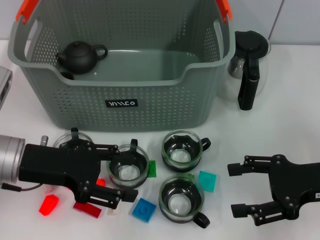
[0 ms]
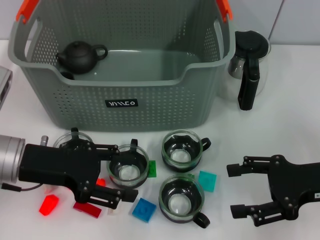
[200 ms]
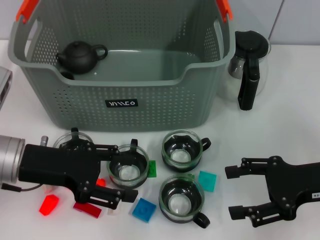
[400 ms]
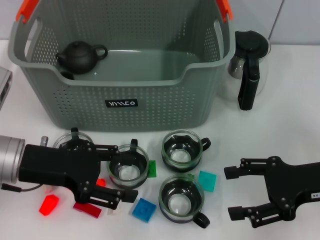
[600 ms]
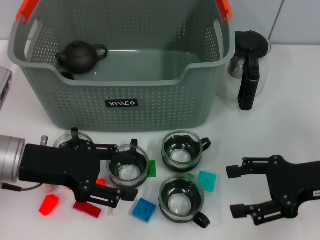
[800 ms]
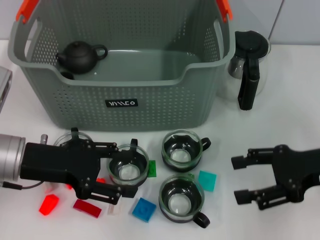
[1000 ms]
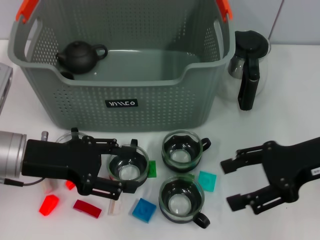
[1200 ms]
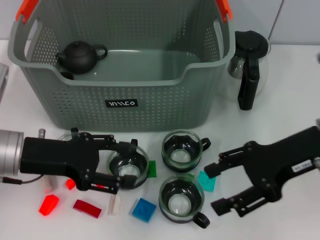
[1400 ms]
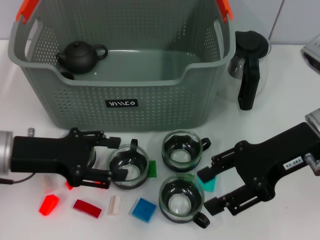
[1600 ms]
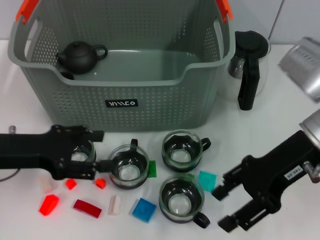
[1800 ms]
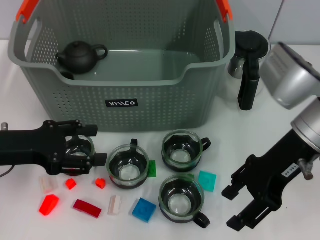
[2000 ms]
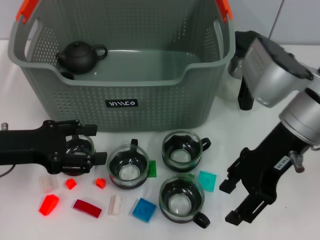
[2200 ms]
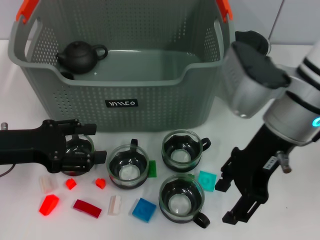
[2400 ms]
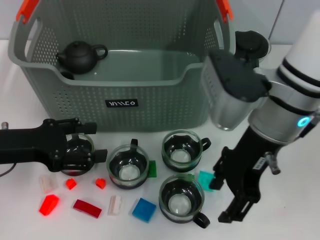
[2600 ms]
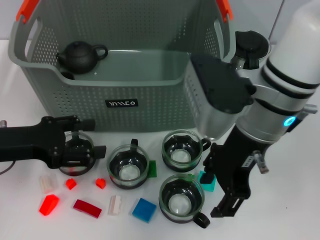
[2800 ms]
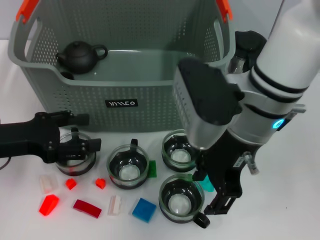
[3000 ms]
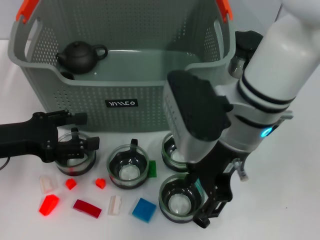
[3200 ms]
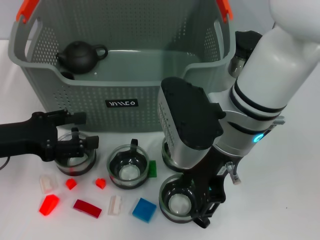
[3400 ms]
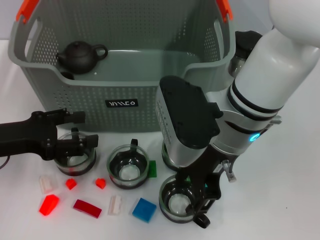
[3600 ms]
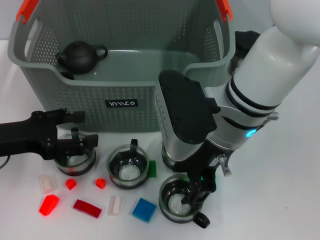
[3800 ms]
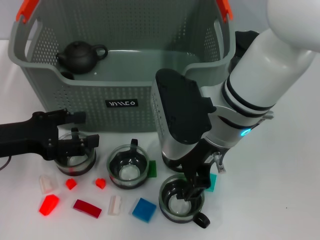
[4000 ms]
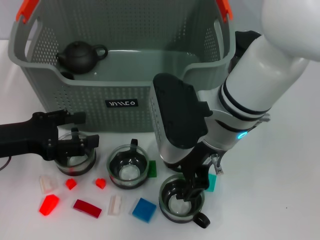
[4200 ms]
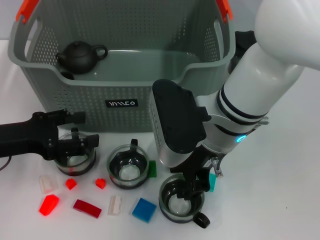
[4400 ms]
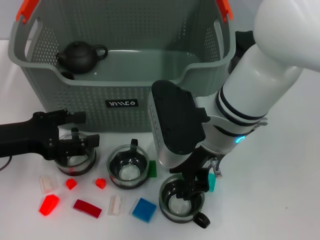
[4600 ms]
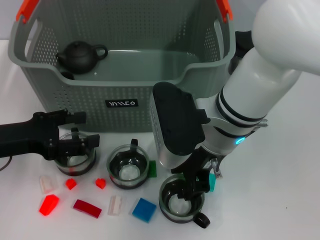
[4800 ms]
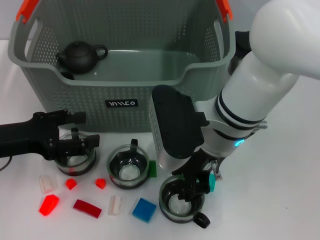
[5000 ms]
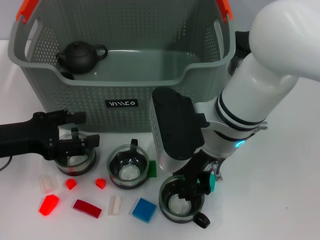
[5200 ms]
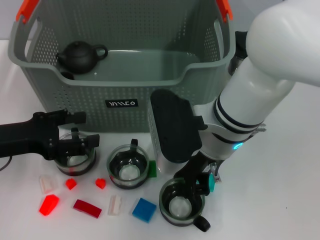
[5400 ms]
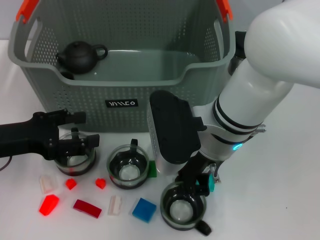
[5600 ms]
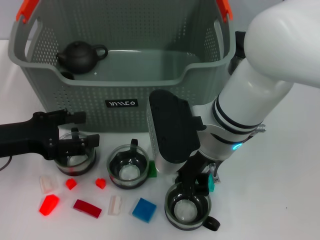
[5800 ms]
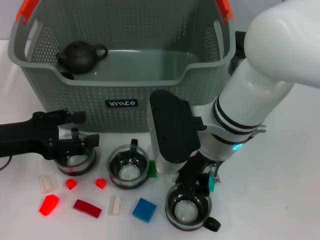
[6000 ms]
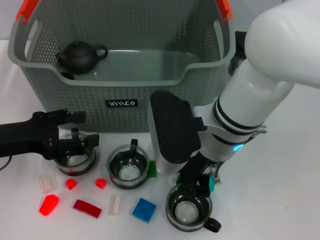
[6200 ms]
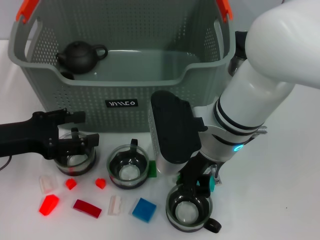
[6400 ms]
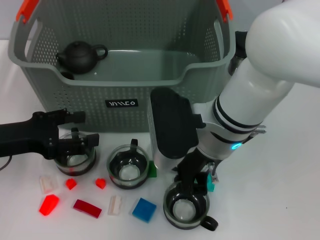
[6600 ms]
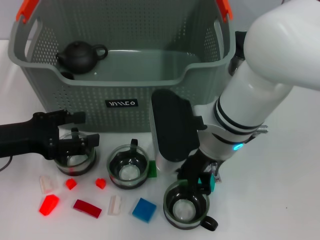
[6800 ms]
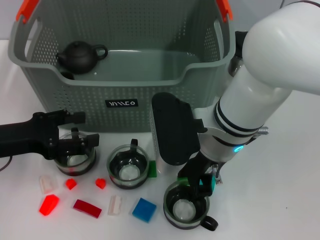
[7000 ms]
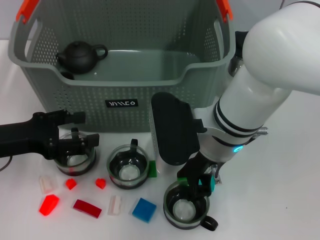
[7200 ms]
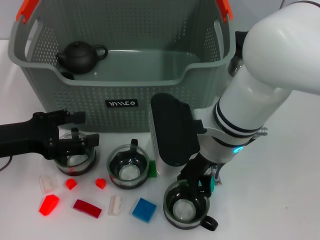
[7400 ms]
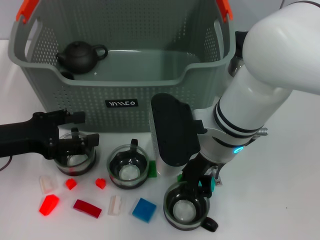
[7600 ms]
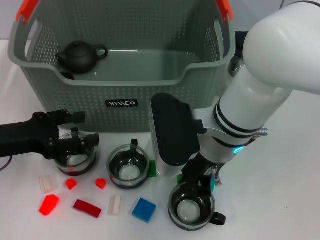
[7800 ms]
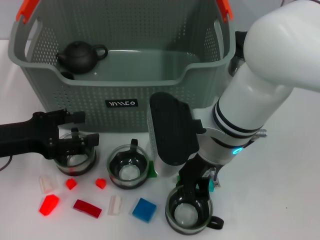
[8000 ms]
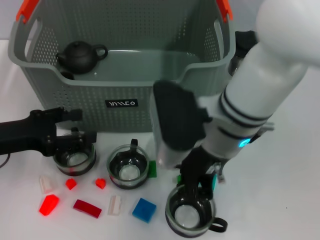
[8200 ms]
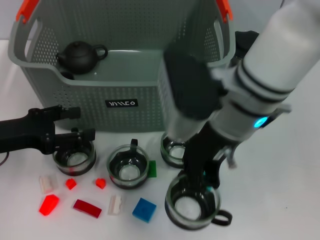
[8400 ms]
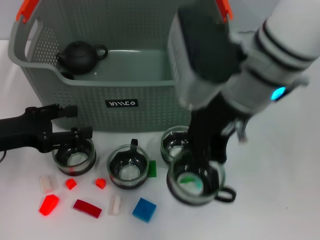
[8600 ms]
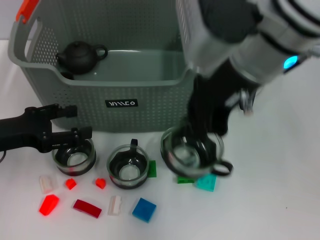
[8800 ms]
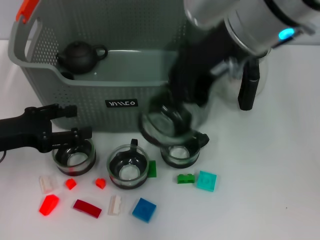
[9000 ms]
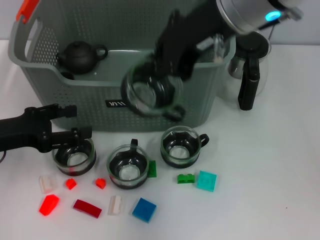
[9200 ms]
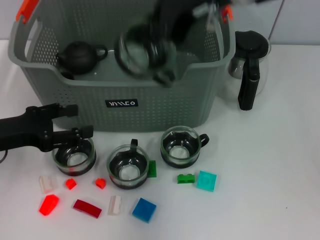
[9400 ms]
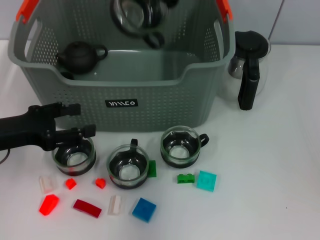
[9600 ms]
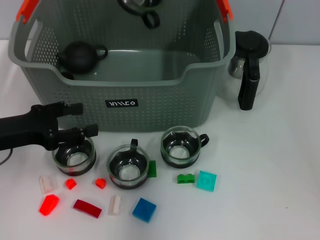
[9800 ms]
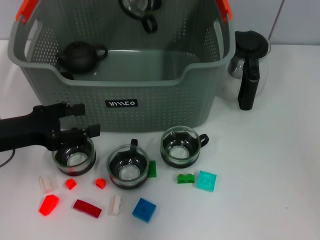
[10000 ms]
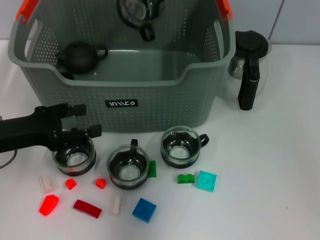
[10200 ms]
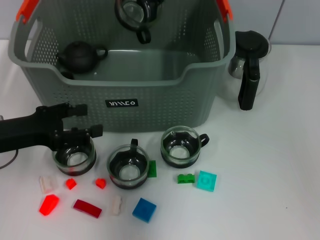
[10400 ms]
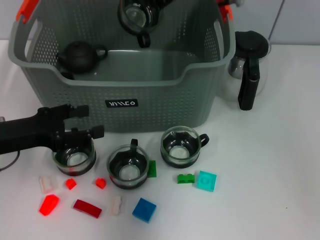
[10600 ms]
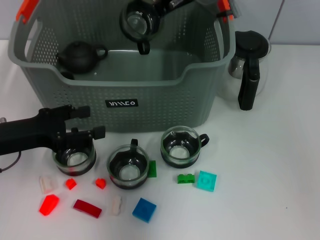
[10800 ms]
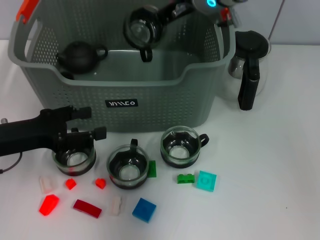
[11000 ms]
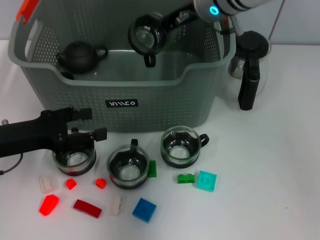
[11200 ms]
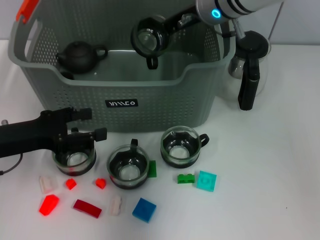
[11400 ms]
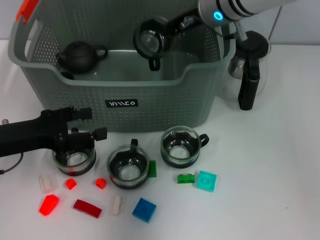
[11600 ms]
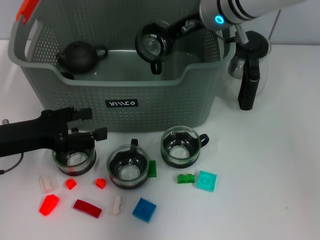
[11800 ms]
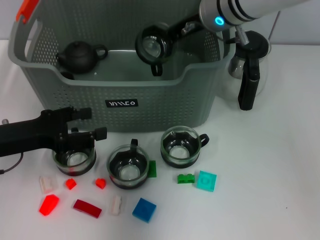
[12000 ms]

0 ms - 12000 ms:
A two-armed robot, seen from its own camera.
Task of the whole recording: pick up the teacup on the table and place it into the storage bin, pick up the block on the table and place it into the storage bin.
Step, 0 ms - 7800 ms: Grasp the cup with right gripper.
0 ms - 1600 ms: The right gripper shifts approximately 10 cm to the left and upward.
1600 ms - 3000 ms: The right gripper shifts some 10 cm to the left.
4400 ms - 6000 ms: The right gripper closes up.
6000 ms - 7600 ms: The right gripper opens its fingers.
7600 ms - 9000 ms: The right gripper goes some 15 cm upward, and closes.
9000 ms - 10400 ms: The right gripper is displaced forward by roughly 15 cm.
10400 ms - 12000 ms: The right gripper travels downward by approximately 5 cm.

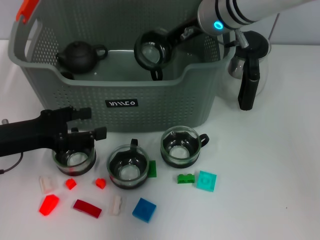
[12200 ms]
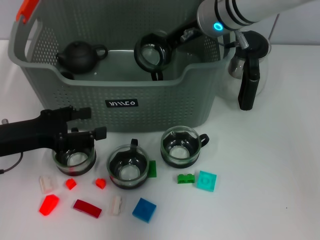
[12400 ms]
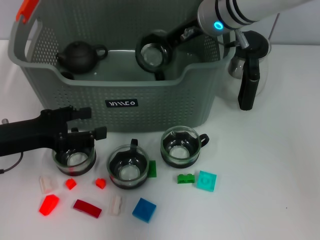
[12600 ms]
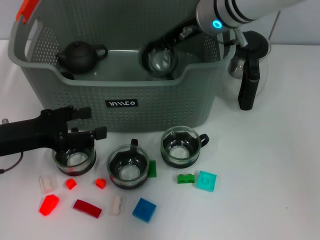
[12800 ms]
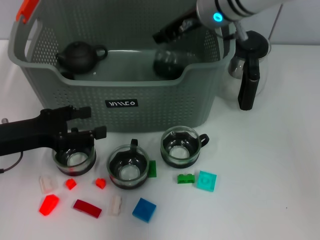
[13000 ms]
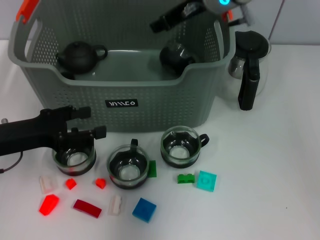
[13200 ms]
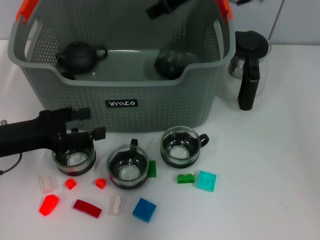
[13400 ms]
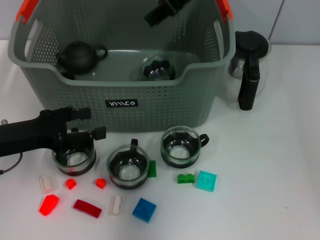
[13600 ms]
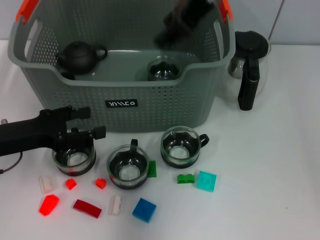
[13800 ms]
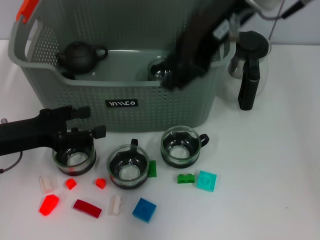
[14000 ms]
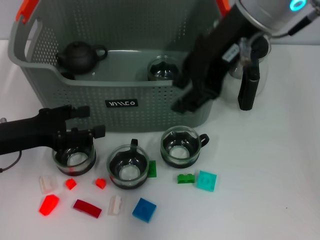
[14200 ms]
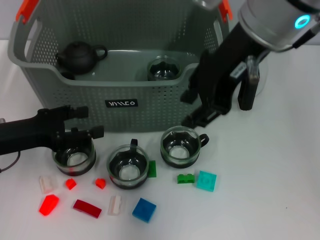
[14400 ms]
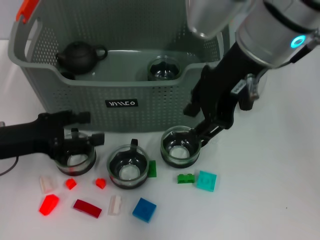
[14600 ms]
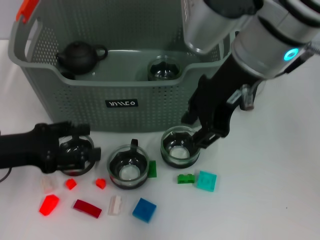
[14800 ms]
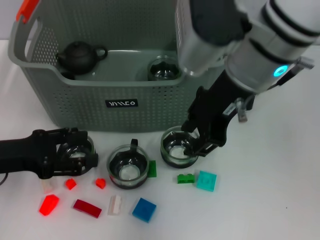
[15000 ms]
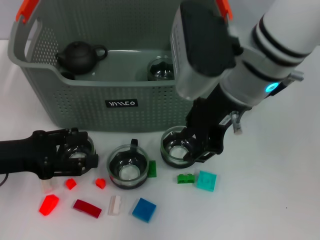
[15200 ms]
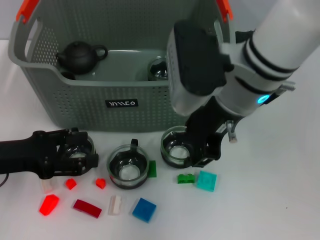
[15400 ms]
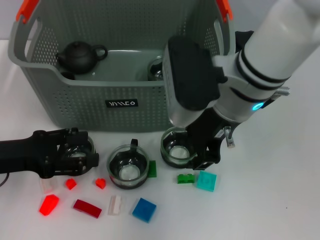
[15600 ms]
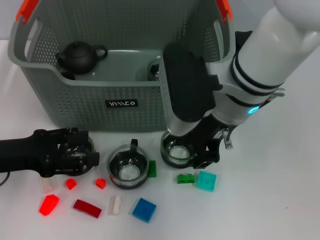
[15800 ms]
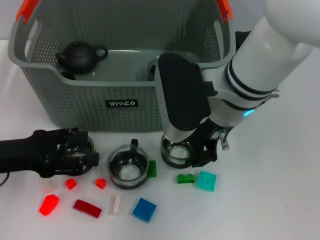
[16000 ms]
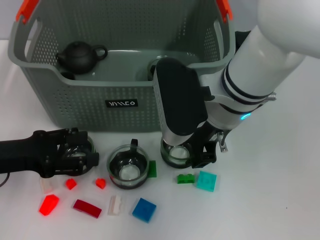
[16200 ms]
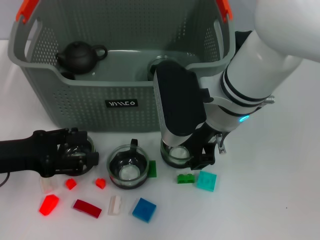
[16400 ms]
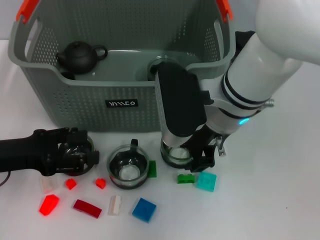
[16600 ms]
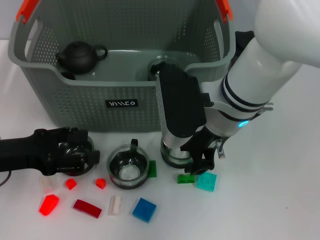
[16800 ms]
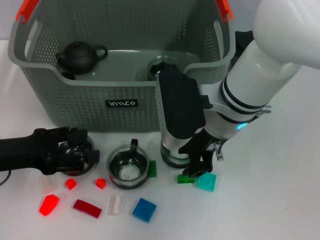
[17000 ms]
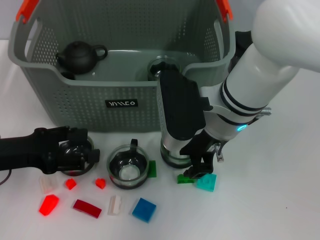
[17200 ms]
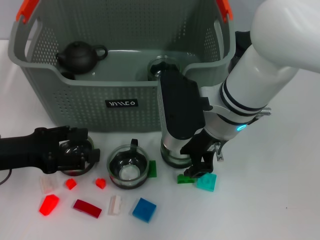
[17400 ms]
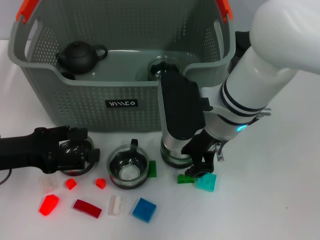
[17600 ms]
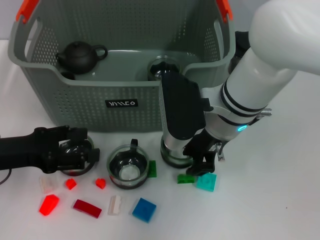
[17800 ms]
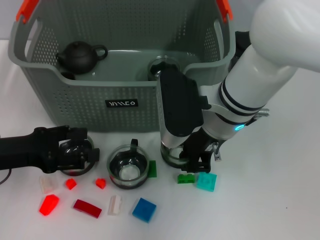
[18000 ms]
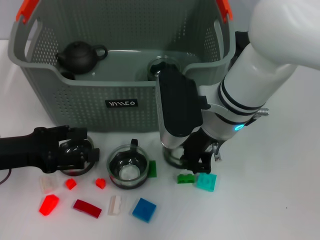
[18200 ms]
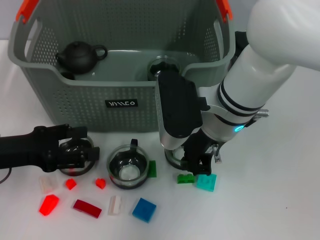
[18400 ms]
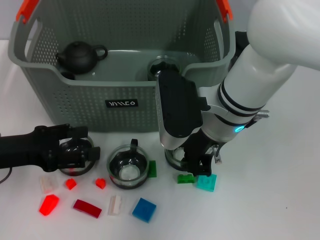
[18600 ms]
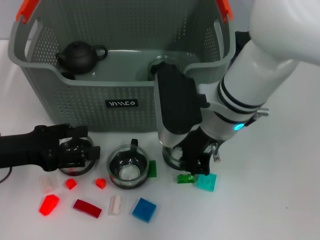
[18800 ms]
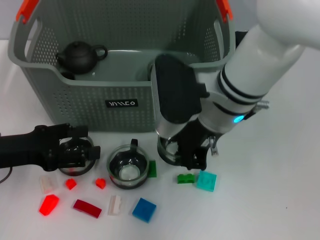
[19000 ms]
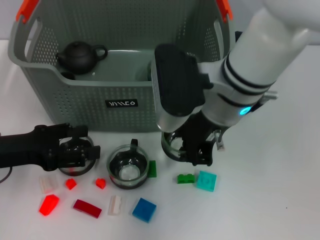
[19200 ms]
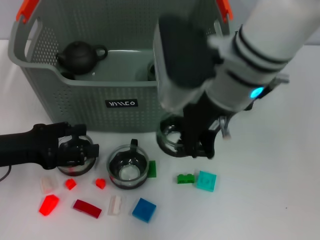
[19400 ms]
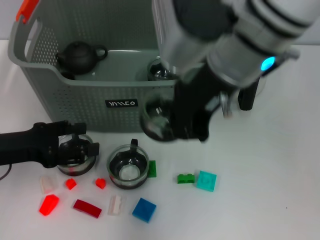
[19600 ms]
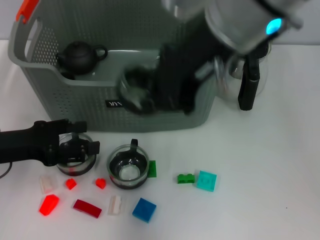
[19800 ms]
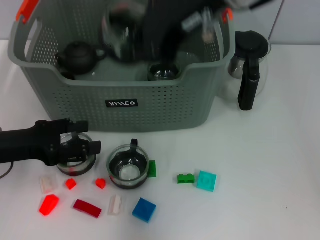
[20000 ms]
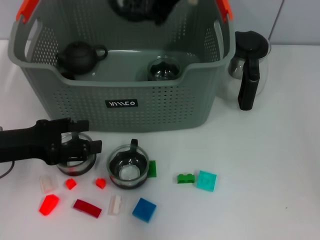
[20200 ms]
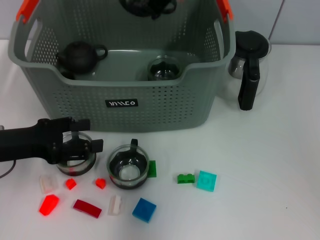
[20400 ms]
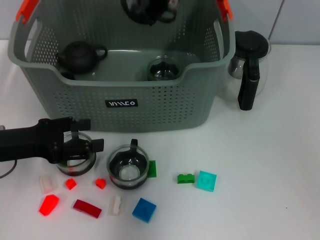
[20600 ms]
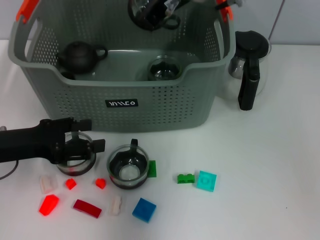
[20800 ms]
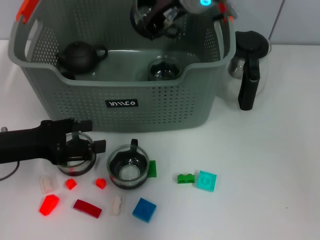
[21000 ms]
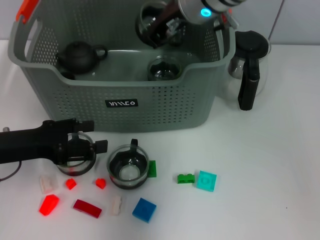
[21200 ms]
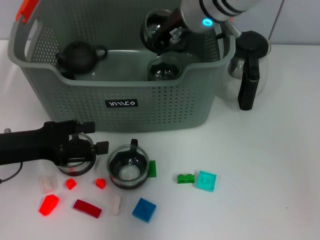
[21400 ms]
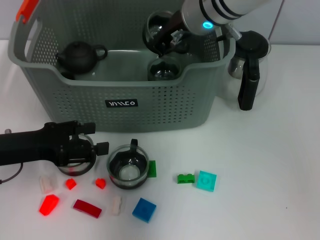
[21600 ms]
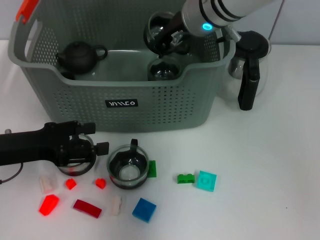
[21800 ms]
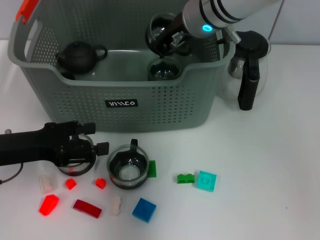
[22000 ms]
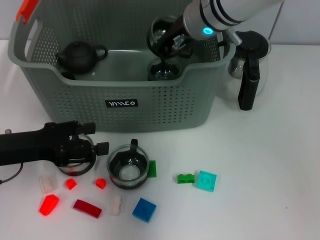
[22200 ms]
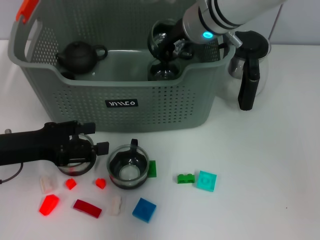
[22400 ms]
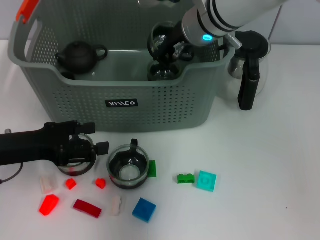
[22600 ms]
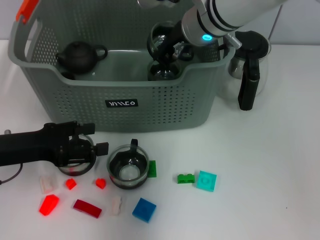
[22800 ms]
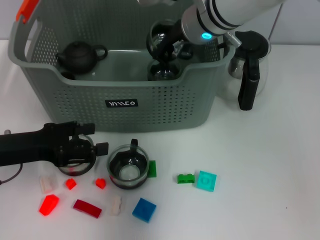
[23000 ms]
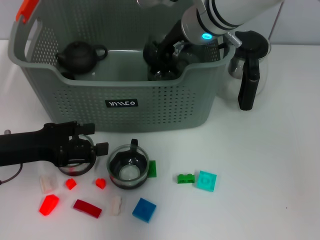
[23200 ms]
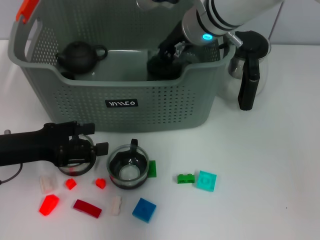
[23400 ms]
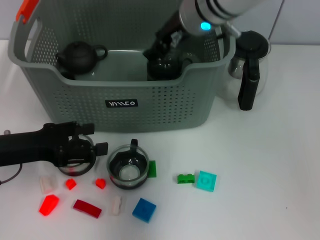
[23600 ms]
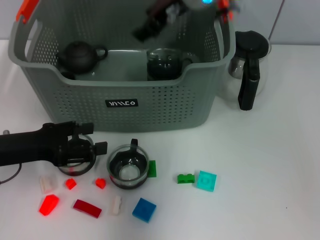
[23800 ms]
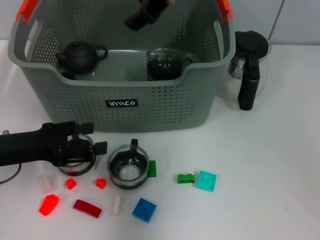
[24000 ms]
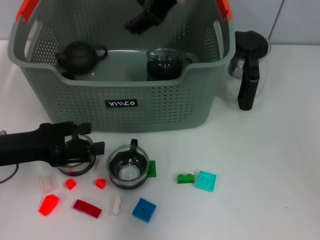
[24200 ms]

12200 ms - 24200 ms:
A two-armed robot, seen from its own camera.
Task of the whole recording: pick up the teacup on the table and place it into the storage bin, pick up the block on the table and place it into the storage bin.
Step, 13800 ms - 18600 ms: Grasp the cup with right gripper.
12200 ms - 13800 ms: The right gripper goes about 15 cm upward and backward, and opens its fingers.
13800 ms - 15200 ms: The right gripper is displaced downward and backward by about 10 cm.
15200 ms - 16600 ms: The right gripper goes approximately 5 cm downward.
16600 ms - 18200 ms: The right gripper closes.
18200 ms - 19800 ms: The right gripper heads upward, covering some 15 cm.
19800 ms - 21200 ms: The right gripper travels forward and downward by about 15 cm.
21200 ms - 22600 ms: The grippers make only small movements.
22600 ms - 24200 ms: The right gripper heads upward, covering roughly 10 cm, and opens.
